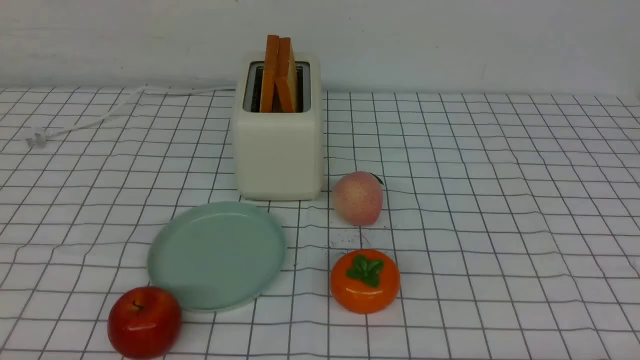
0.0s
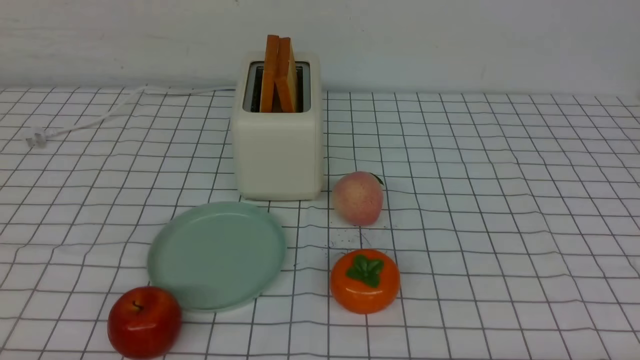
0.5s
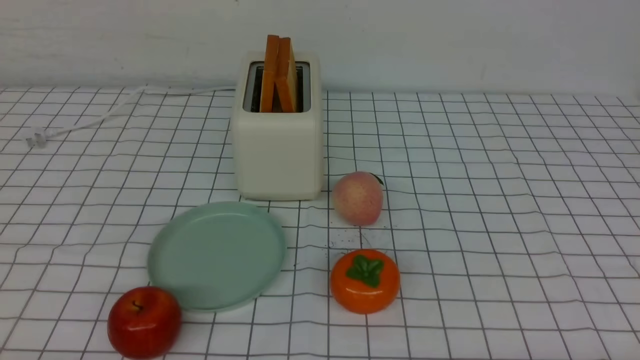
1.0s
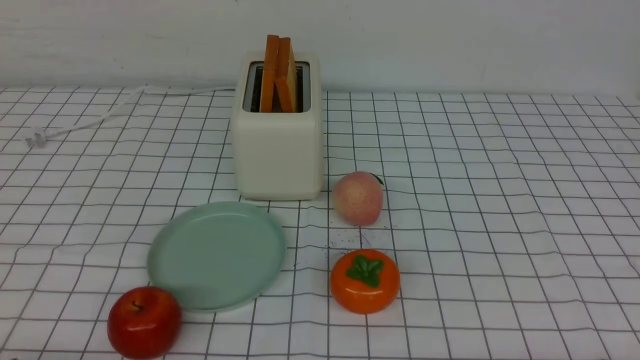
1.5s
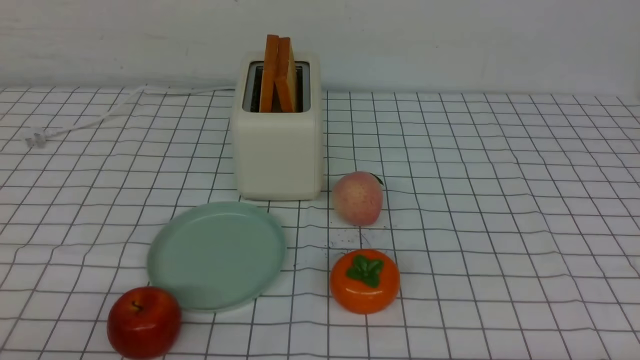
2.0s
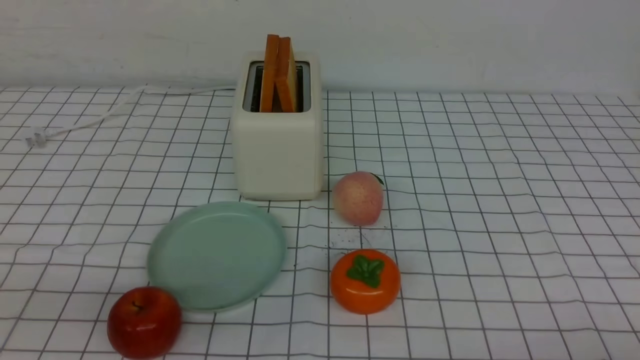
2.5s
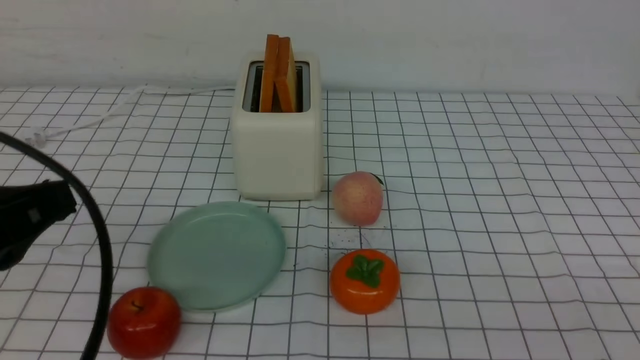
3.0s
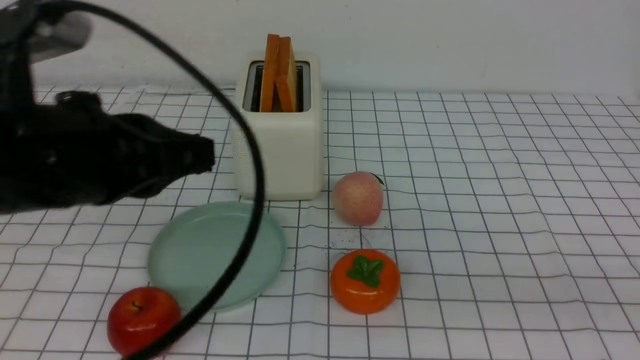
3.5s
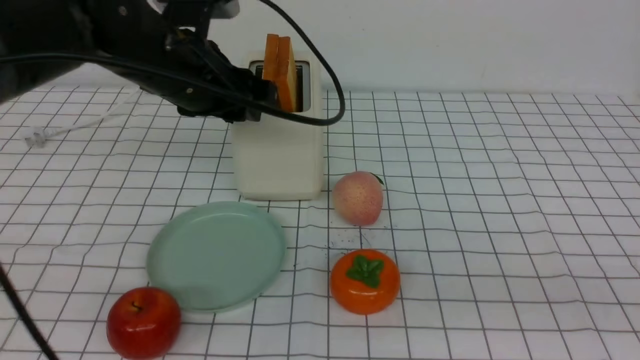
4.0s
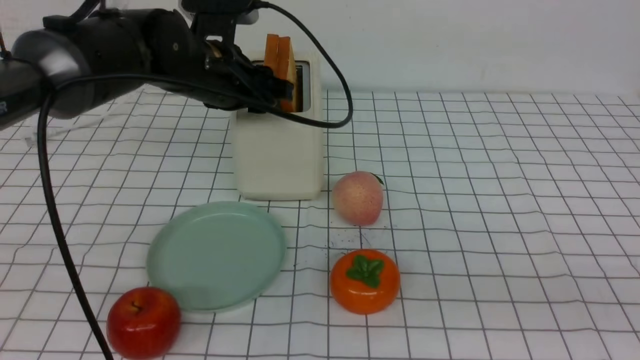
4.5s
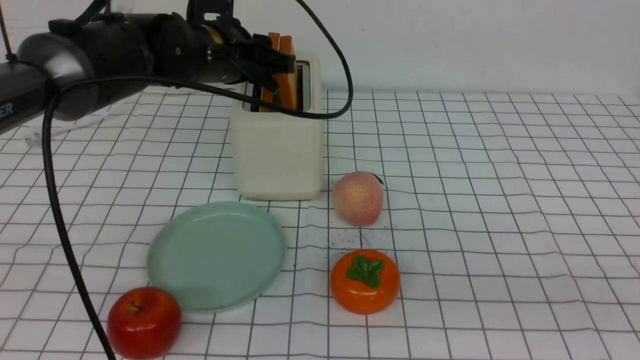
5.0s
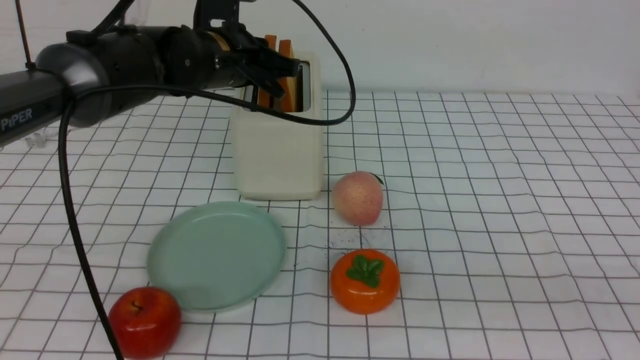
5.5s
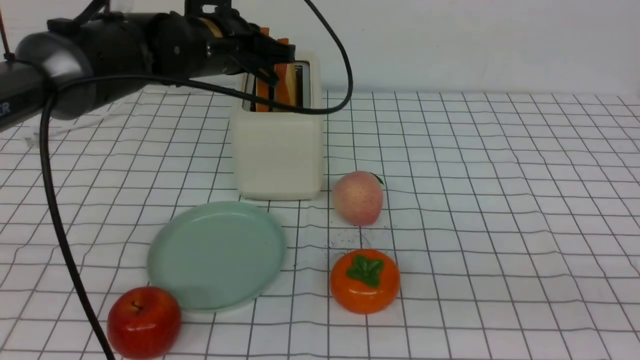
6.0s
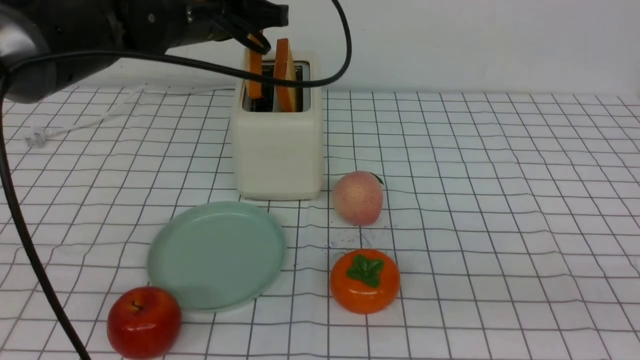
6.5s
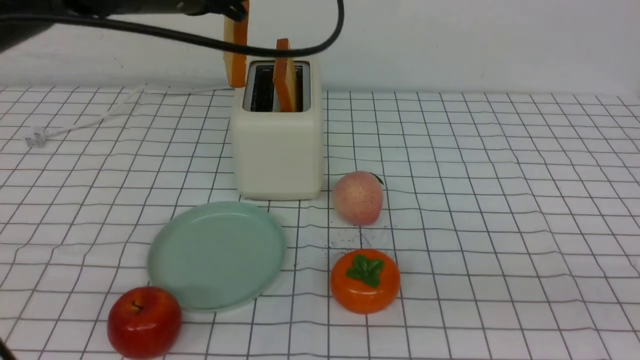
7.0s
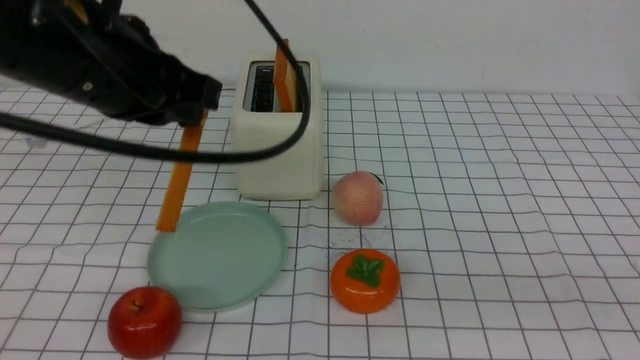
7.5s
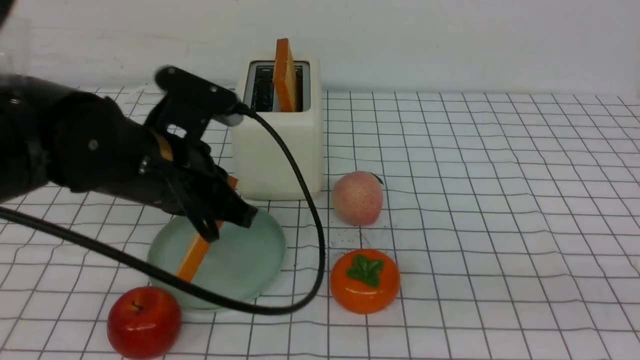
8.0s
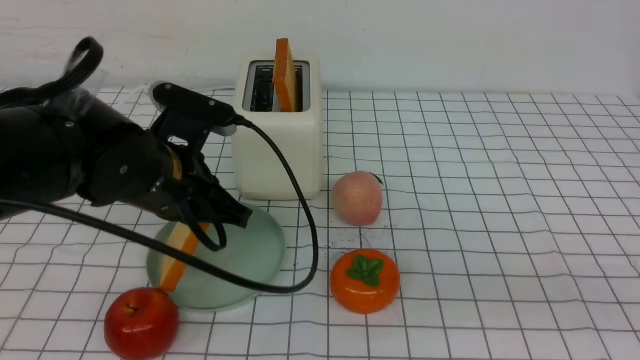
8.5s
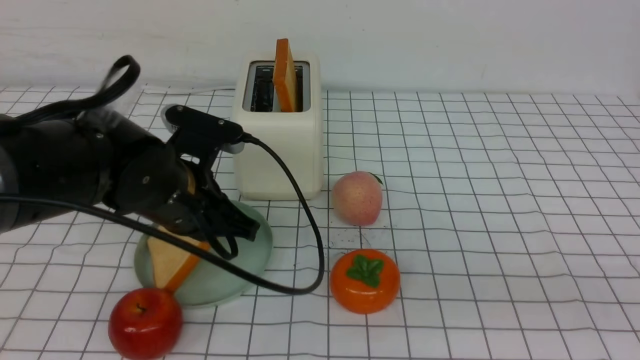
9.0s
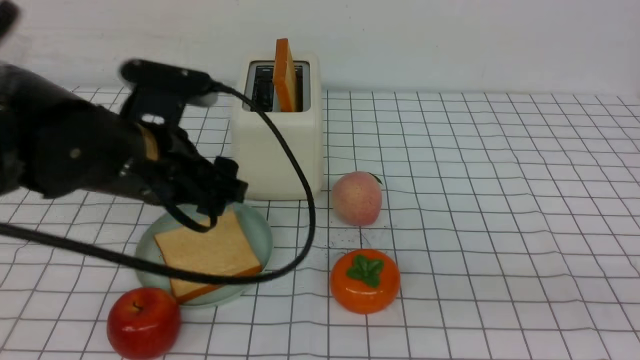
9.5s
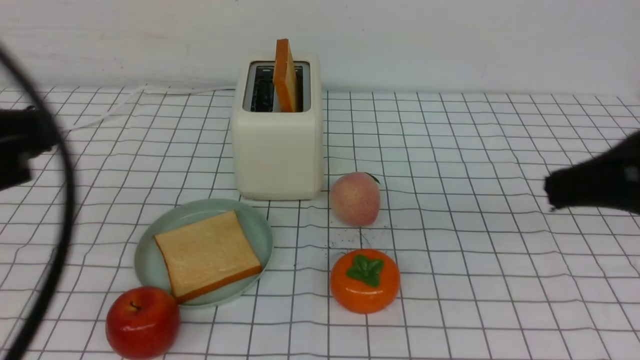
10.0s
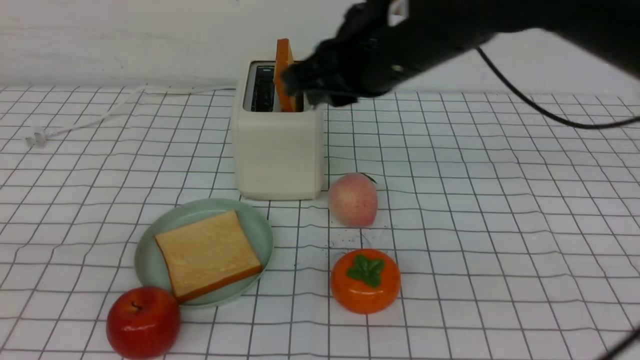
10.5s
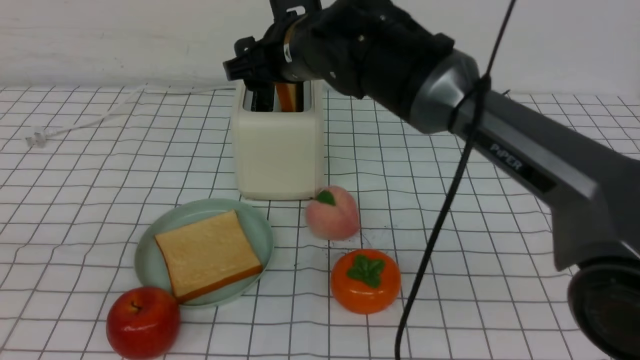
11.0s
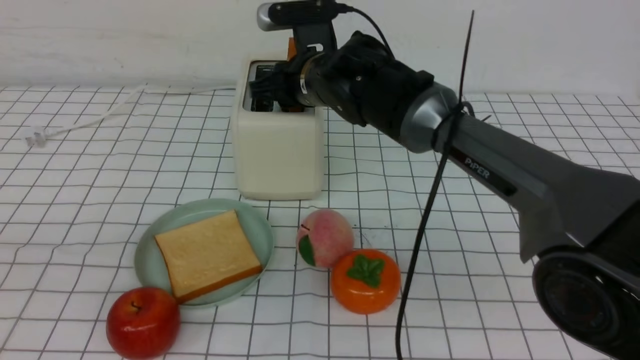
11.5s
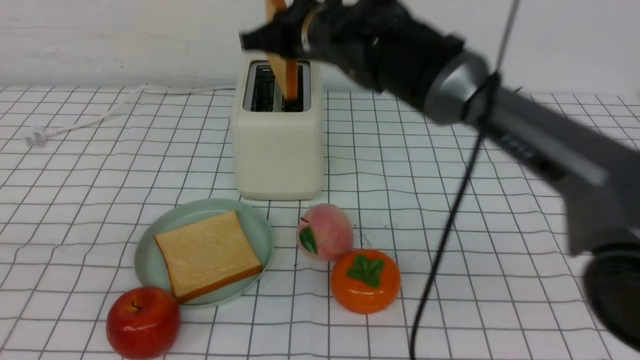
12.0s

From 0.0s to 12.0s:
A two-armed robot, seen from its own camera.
Task of the whole recording: take toasted bread from bread machine on white checkered table place on plate.
Step, from 0.0s to 6.5s: use the left arm to take out a slice of bread.
Step, from 7.0s to 9.0s: use the left arm to put a slice of bread into the empty plate.
From 2.0s to 4.0s: The left gripper travels forward and to the right by about 35 cm, and closes, then opens again. Meanwhile the right gripper moves upward, approximately 20 cm, and closes.
From 4.0s to 6.0s: The left gripper travels forward by some 5 cm, and closes up.
From 6.0s to 8.0s: The left gripper is displaced backward by approximately 15 cm.
From 8.0s to 10.0s: The right gripper goes some 10 cm forward. Meanwhile the left gripper heads backward, upward and to the left, covering roughly 20 cm, and opens, then closes again.
From 10.0s to 12.0s: The right gripper goes roughly 30 cm forward and to the left, and opens, then closes again, while the left gripper goes approximately 5 cm backward.

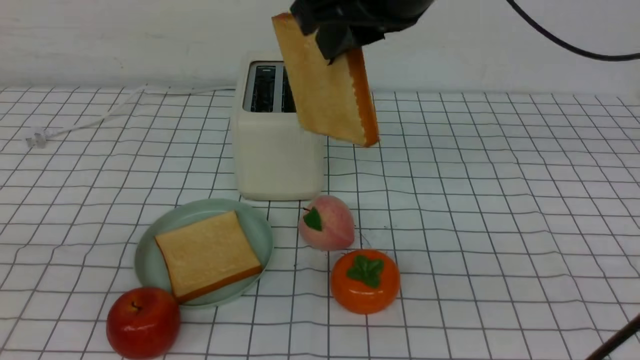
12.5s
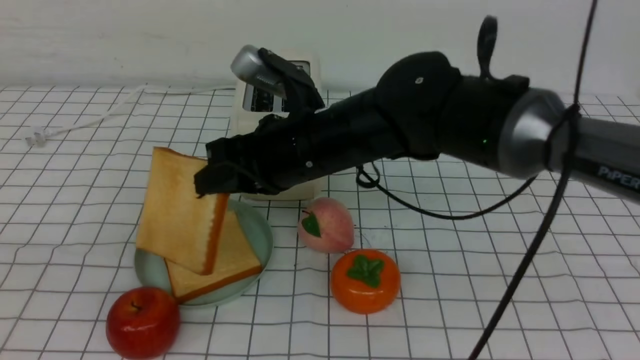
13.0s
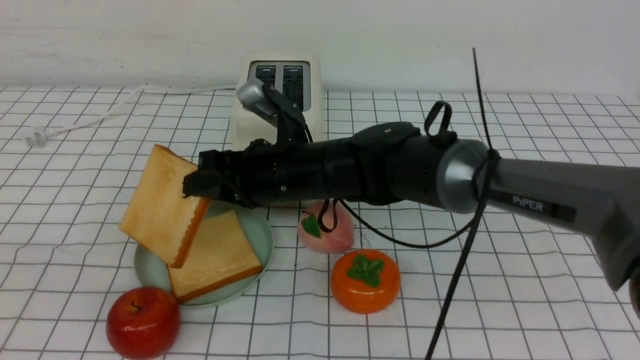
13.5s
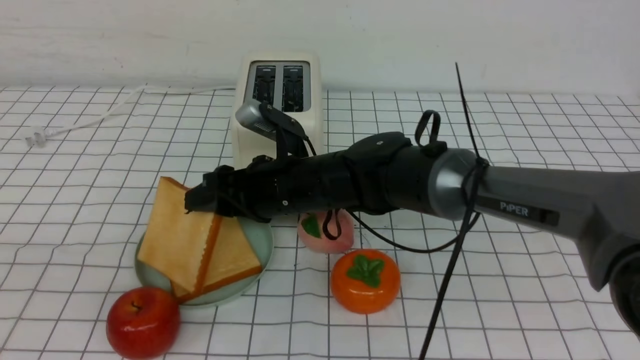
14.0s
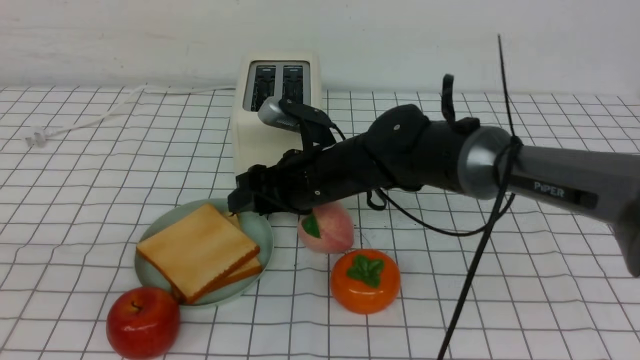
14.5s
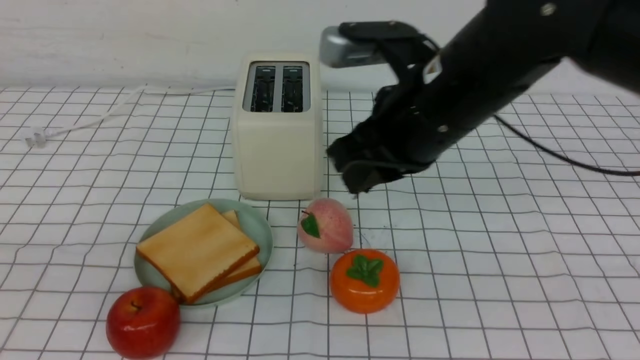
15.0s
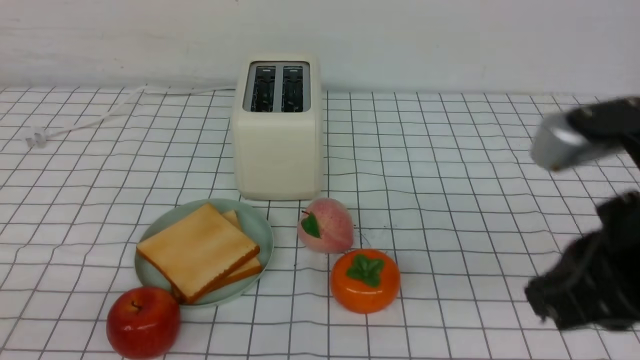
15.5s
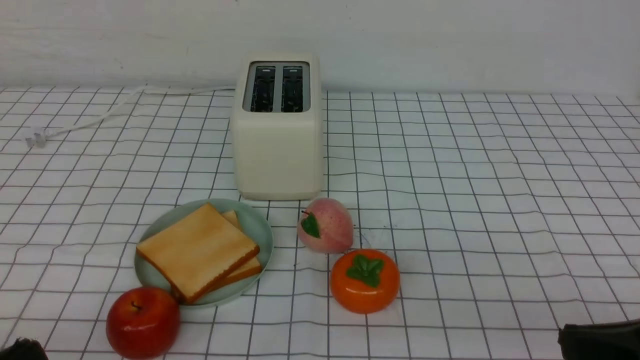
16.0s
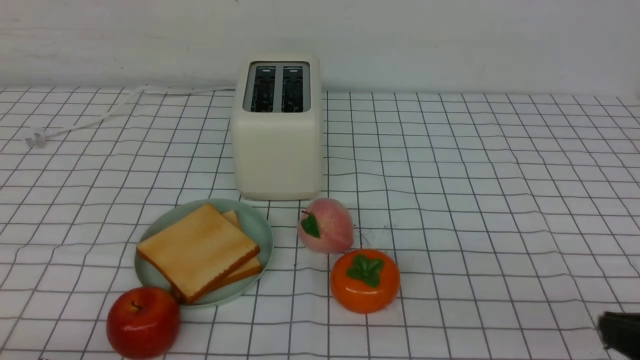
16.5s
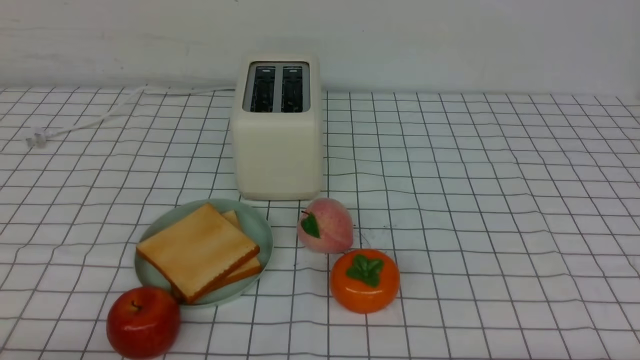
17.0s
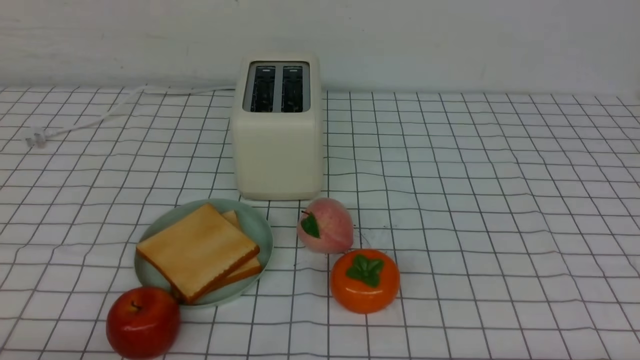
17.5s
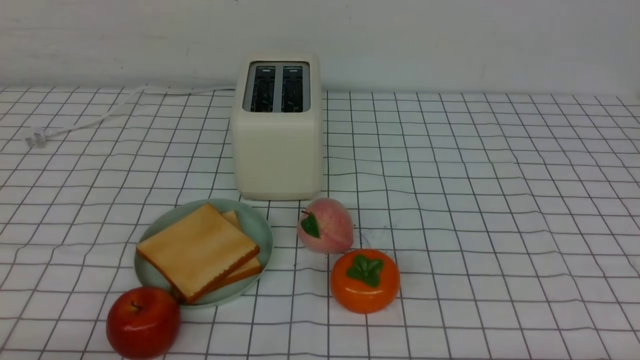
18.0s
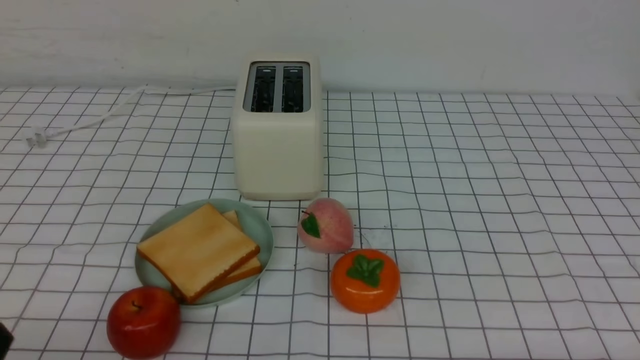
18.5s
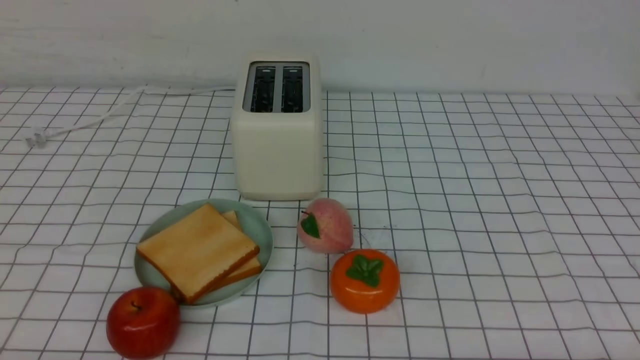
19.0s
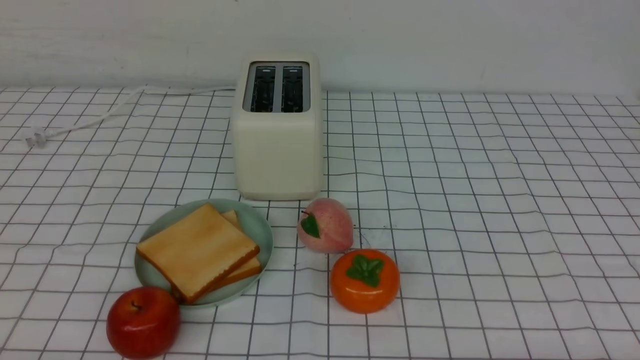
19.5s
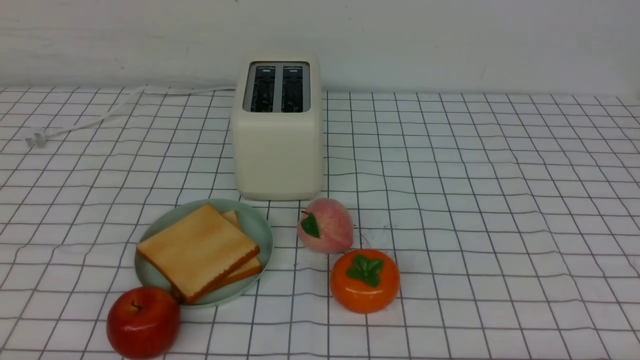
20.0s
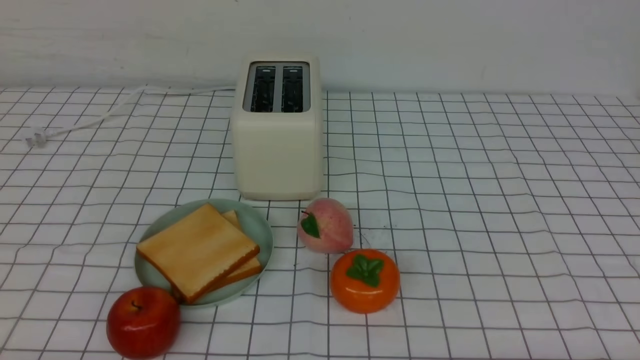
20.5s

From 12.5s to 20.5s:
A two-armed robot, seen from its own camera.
Task of the whole recording: take toasted bread from bread machine on white checkered table place on plate.
Step, from 12.5s to 14.5s: use the right arm to put a slice of bread into the plate.
From 12.5s to 14.5s: The right gripper is displaced downward by some 20 cm, and opens.
From 14.5s to 16.5s: The right gripper moves backward and to the right, about 40 cm, and closes; the left gripper is displaced downward by approximately 15 cm.
From 16.5s to 18.5s: The right gripper shifts roughly 10 cm downward.
